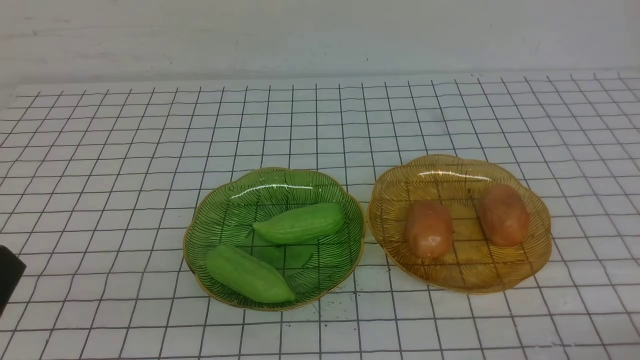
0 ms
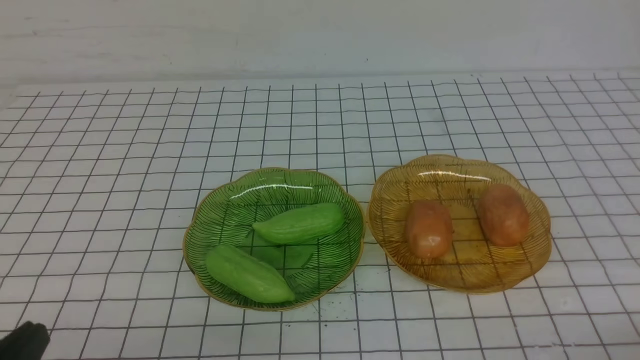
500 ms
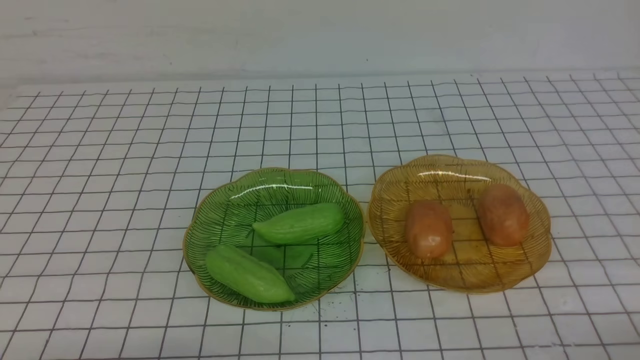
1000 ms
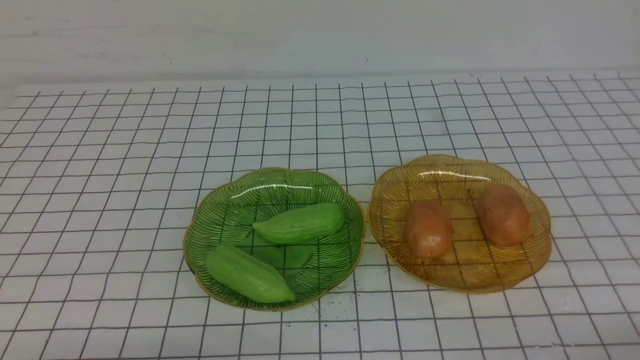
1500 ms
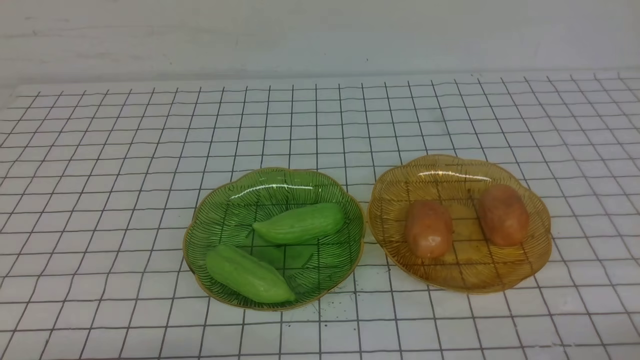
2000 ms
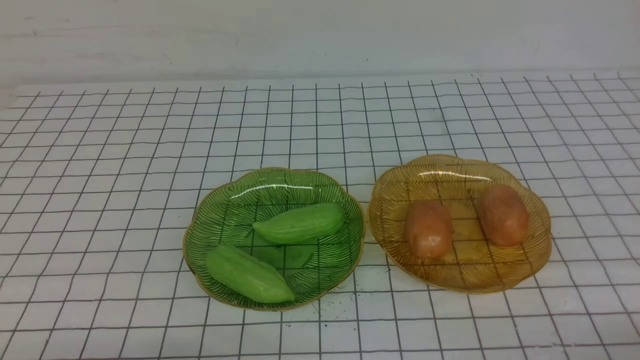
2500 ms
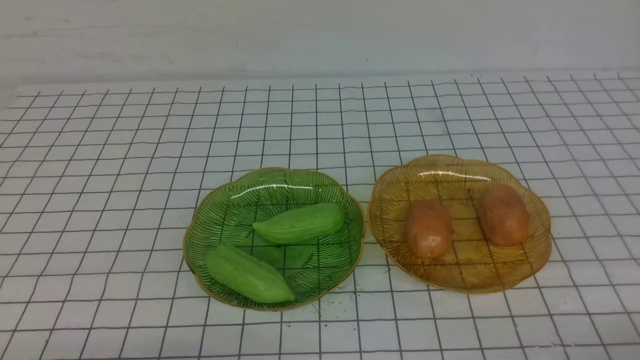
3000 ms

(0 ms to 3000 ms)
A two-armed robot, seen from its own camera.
1500 ms - 3000 ms: Neither gripper changes place.
